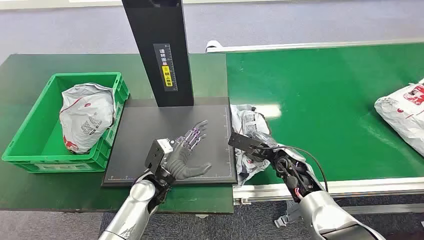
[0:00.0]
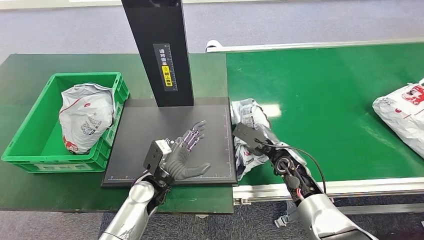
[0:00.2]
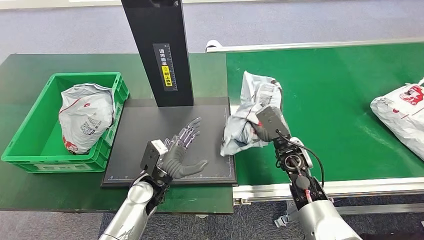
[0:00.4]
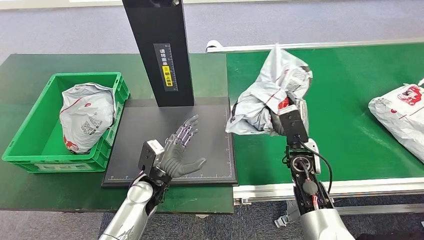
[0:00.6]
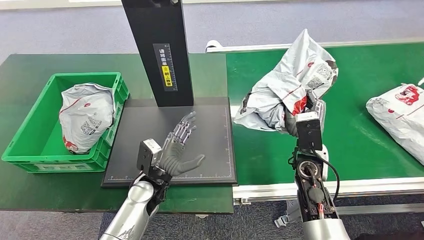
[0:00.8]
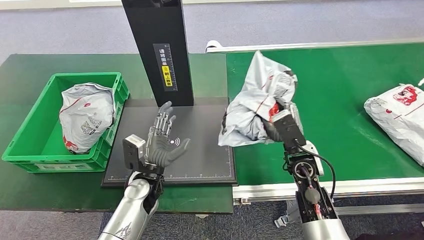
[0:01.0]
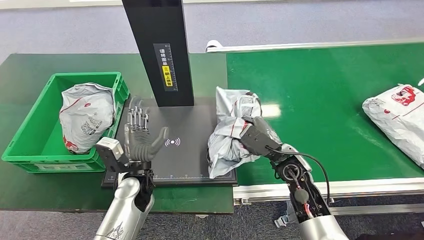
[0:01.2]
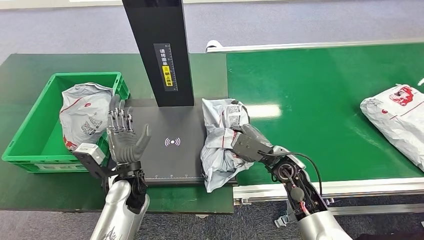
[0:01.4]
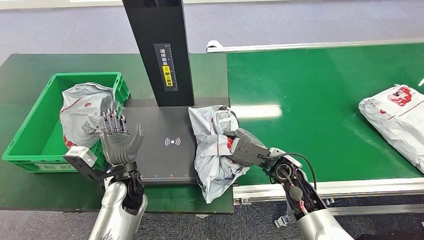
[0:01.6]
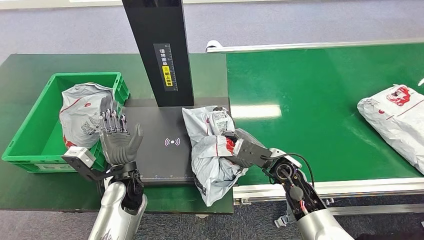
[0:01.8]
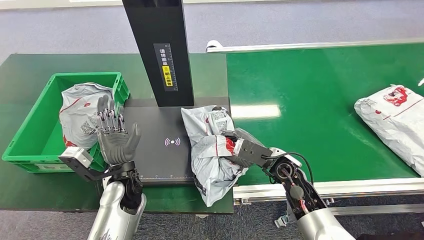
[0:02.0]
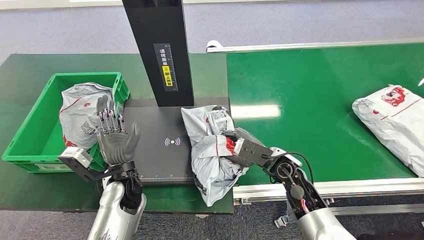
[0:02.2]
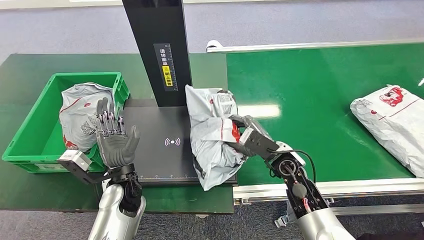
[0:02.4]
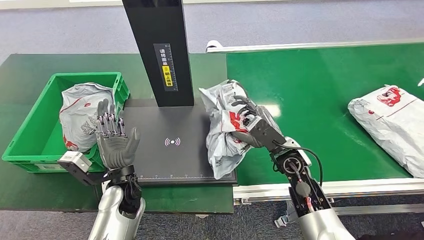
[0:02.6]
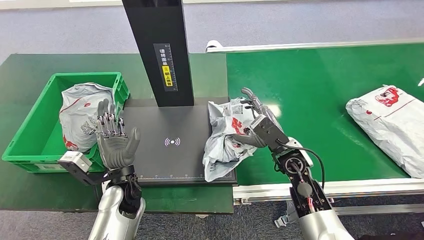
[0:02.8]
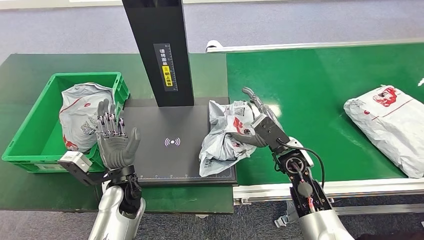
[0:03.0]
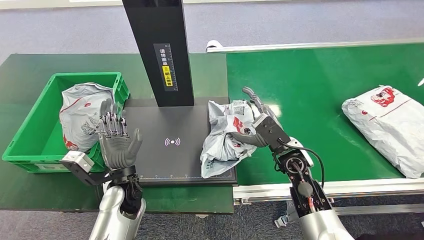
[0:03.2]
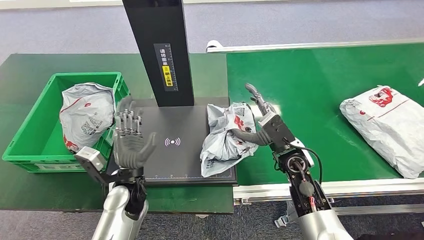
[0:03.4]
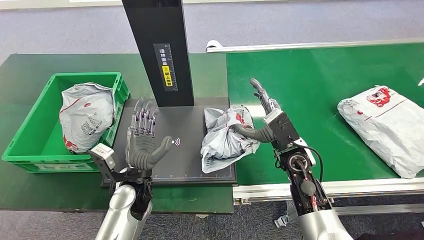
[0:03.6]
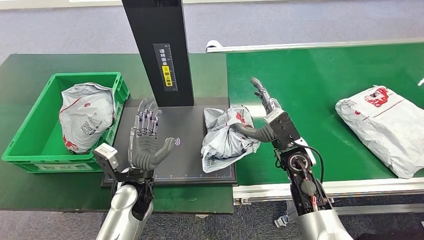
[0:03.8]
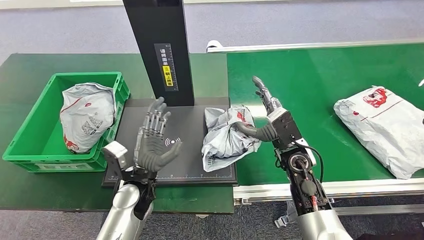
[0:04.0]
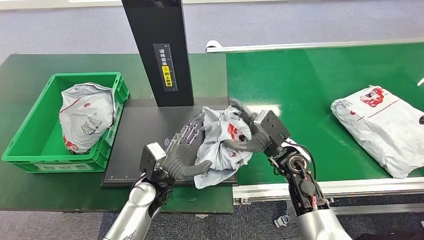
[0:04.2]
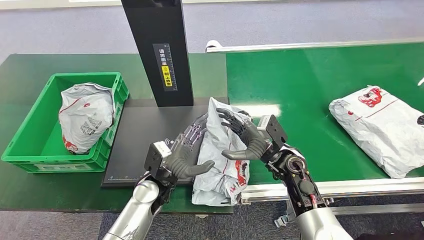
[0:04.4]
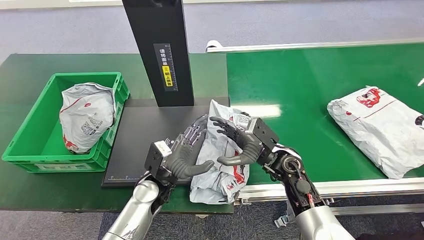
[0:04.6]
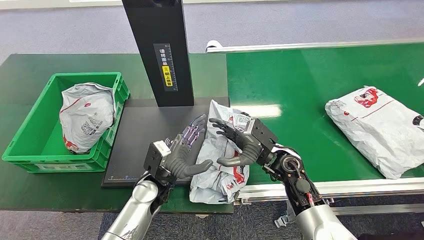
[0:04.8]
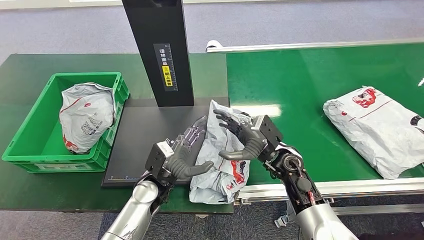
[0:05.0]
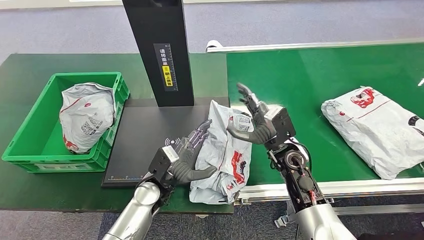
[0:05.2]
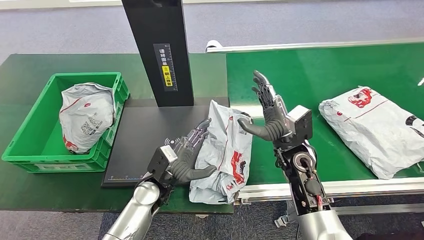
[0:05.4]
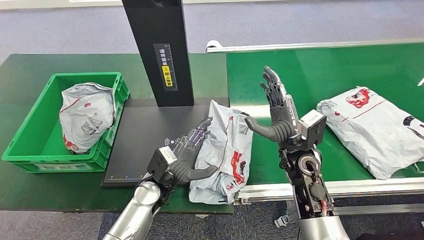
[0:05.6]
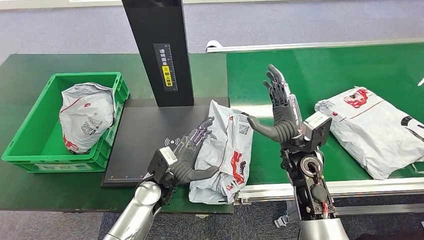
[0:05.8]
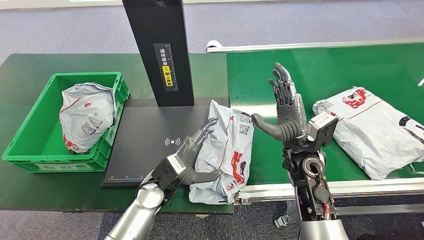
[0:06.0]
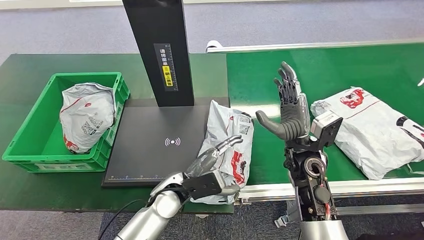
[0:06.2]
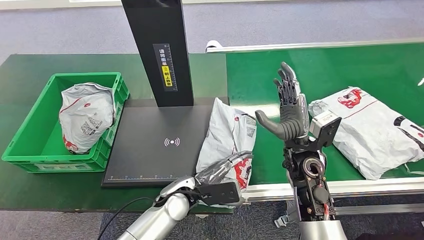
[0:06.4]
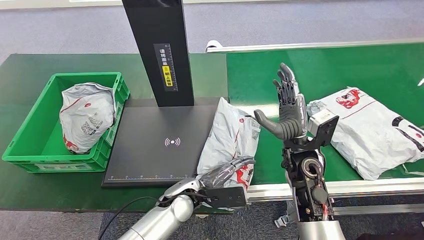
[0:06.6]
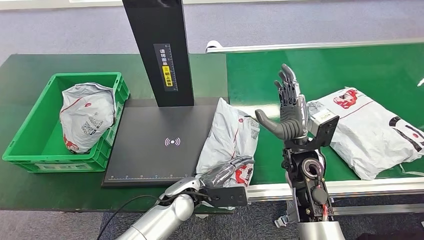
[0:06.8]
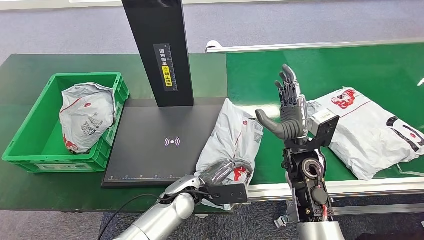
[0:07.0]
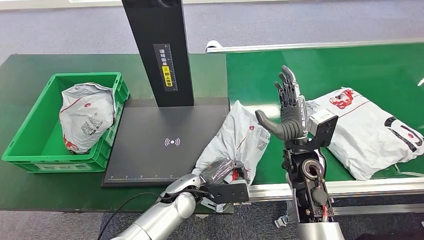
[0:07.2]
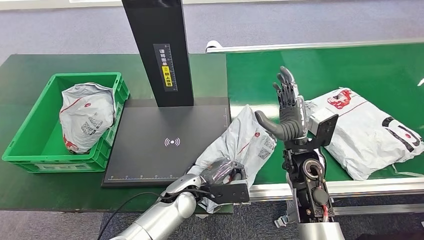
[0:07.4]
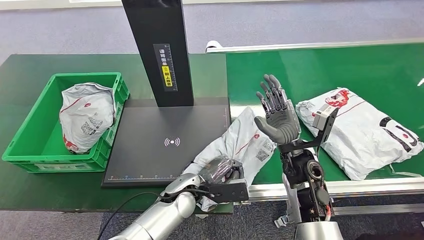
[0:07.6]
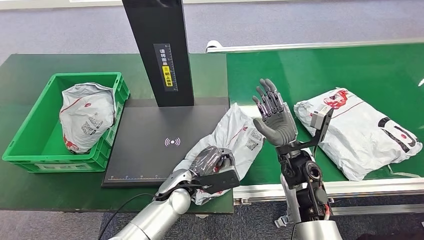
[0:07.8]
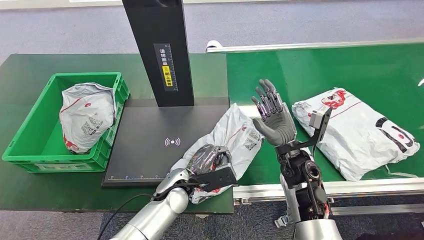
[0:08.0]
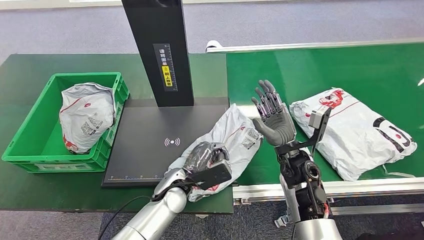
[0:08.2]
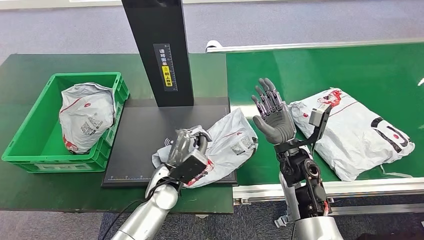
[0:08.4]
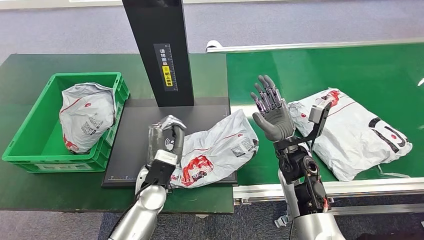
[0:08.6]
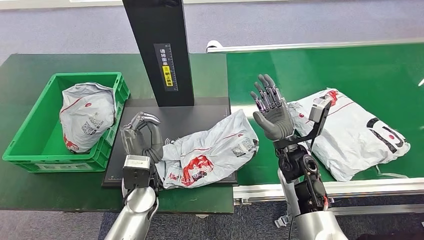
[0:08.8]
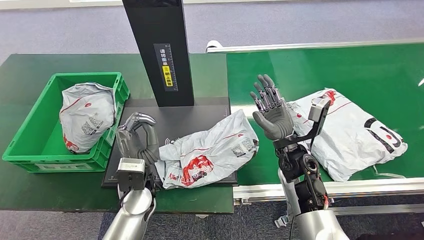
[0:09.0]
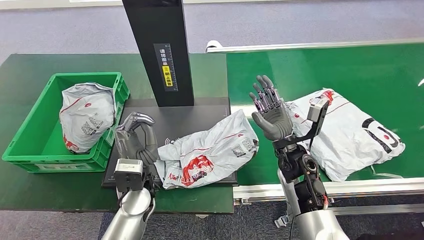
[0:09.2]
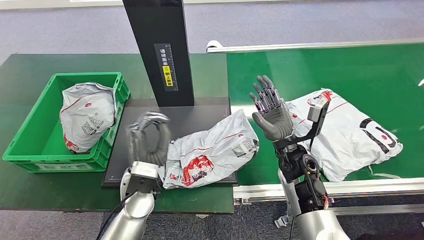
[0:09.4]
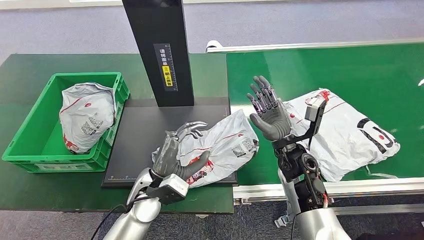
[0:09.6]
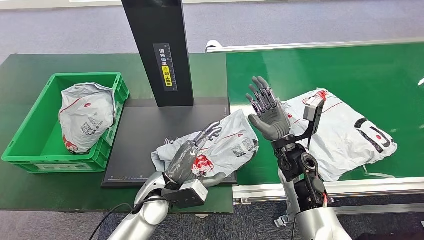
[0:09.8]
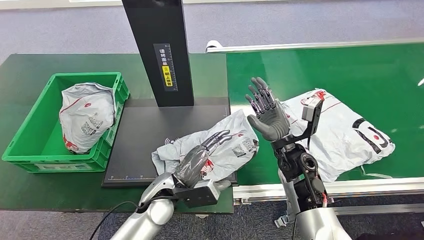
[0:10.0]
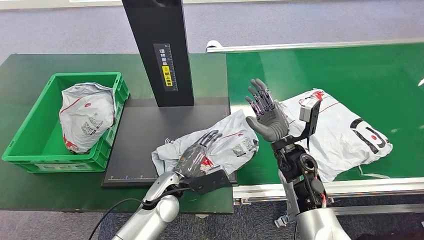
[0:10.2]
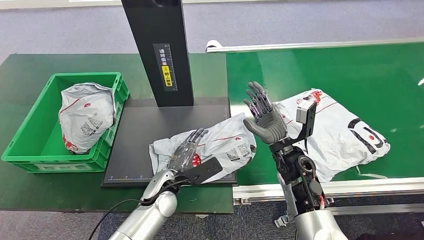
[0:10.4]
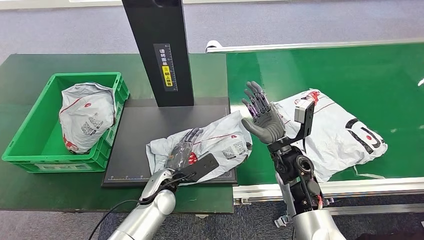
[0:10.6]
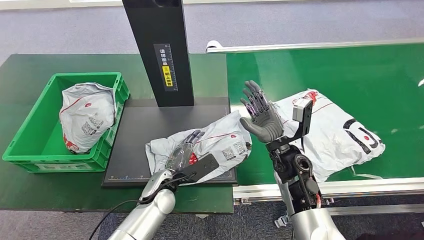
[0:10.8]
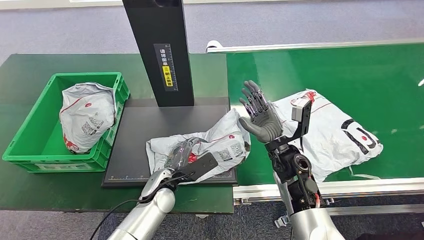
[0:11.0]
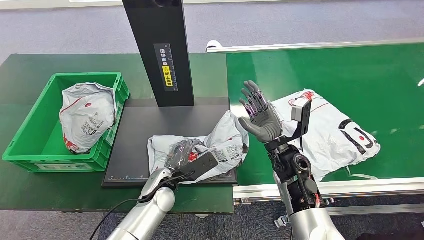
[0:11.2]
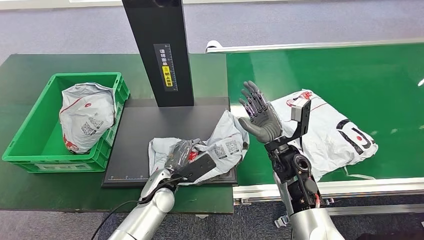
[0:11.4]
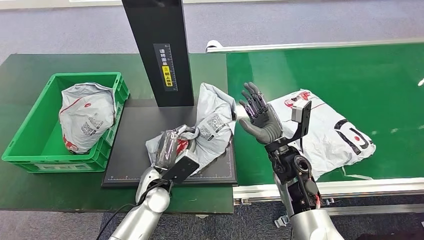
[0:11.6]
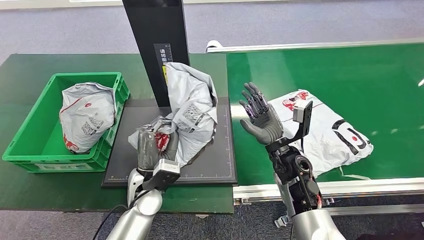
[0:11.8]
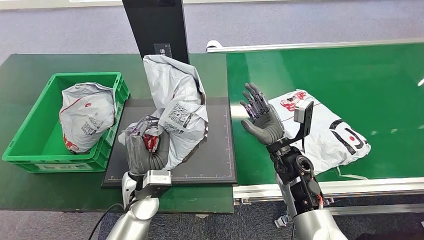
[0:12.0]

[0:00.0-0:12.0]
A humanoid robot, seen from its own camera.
Task of the whole recording: Weigh the package on the weighing device and place it in the left basket.
Step, 0:00.0 to 0:00.8: Pick up the package from the conveyor belt.
Step, 0:01.0 to 0:03.4: Place the package onto the inbound machine.
0:03.0 to 0:04.4: The left hand heads to the right, covering some 5 cm.
0:04.4 to 0:06.0: The right hand changes place by some 5 cm.
0:06.0 to 0:07.6: The left hand shifts about 5 cm to the right.
0:09.0 to 0:10.4: The left hand travels downward by about 5 cm.
0:10.4 to 0:12.0: The left hand travels upward by approximately 5 cm.

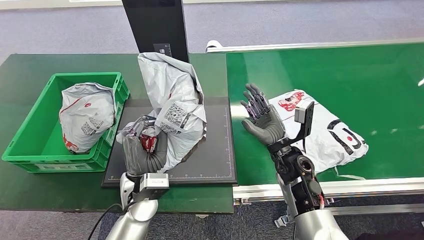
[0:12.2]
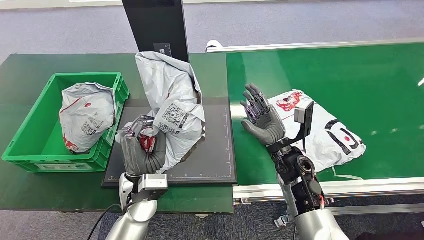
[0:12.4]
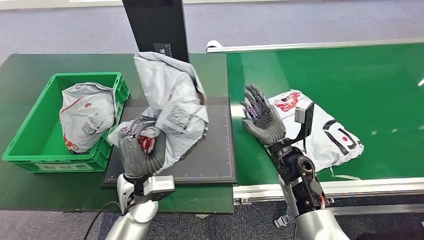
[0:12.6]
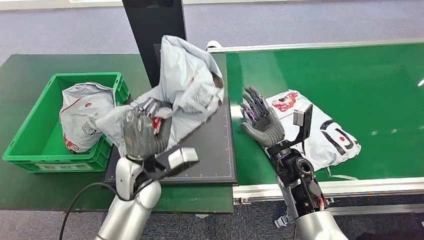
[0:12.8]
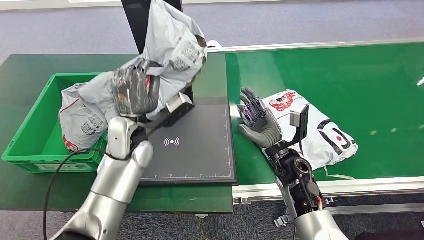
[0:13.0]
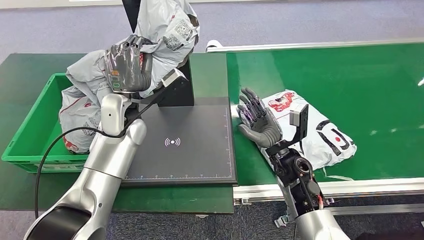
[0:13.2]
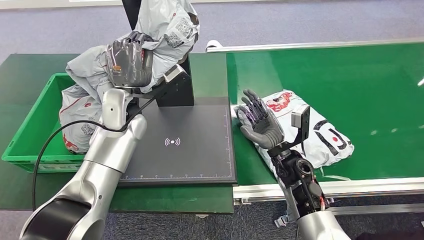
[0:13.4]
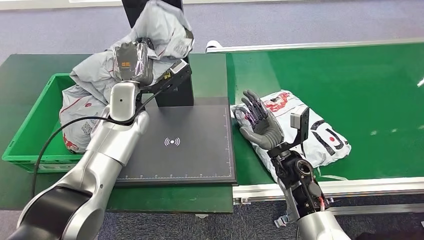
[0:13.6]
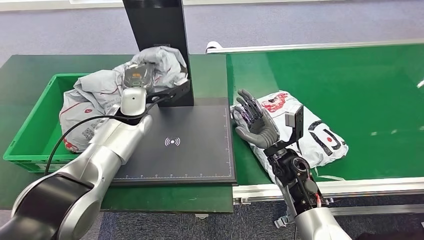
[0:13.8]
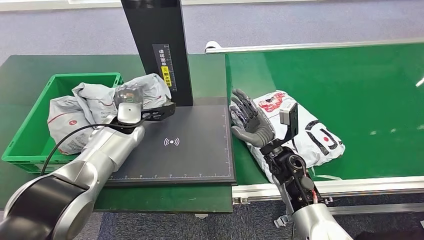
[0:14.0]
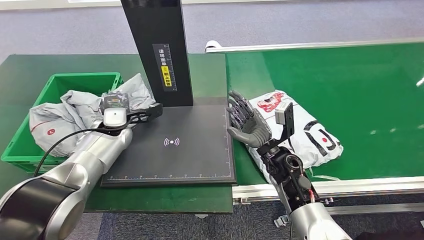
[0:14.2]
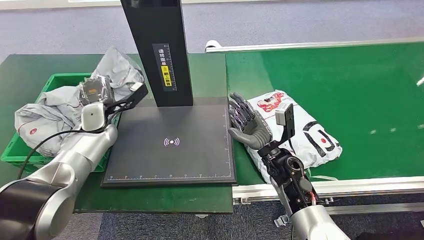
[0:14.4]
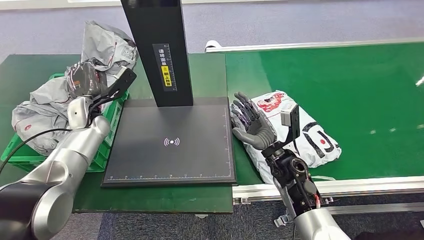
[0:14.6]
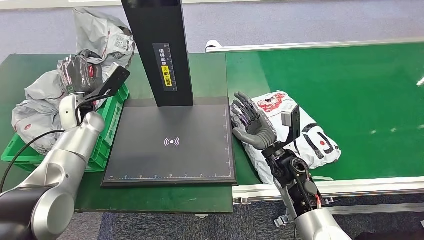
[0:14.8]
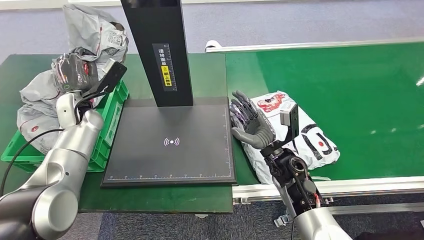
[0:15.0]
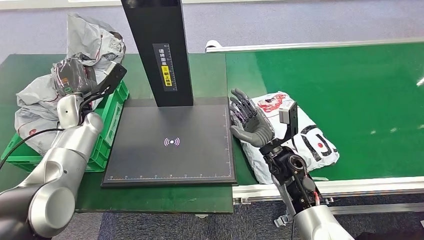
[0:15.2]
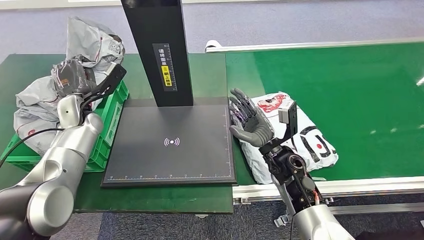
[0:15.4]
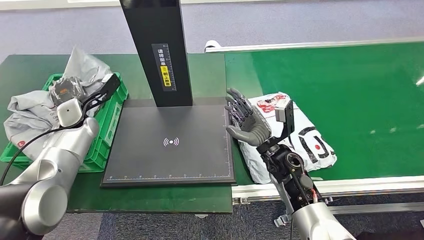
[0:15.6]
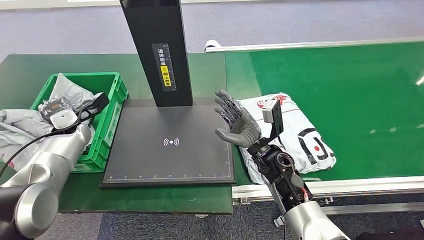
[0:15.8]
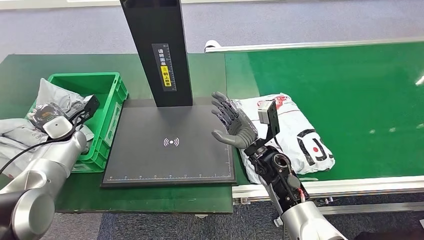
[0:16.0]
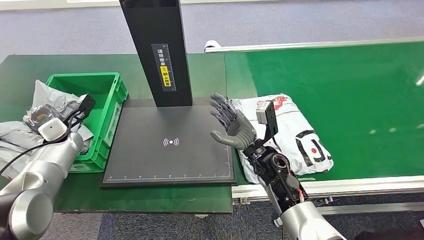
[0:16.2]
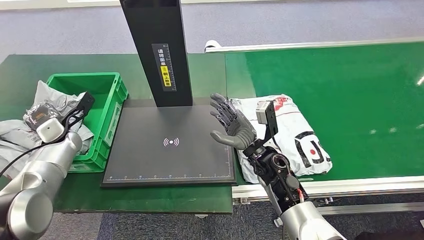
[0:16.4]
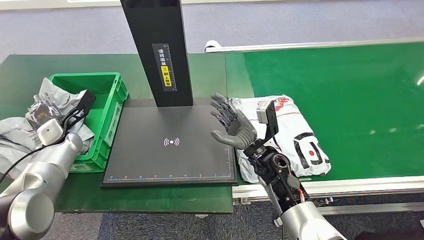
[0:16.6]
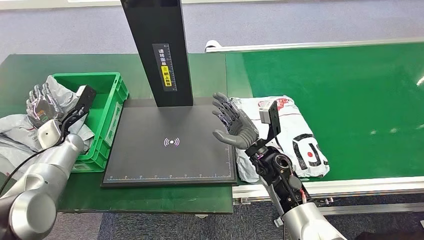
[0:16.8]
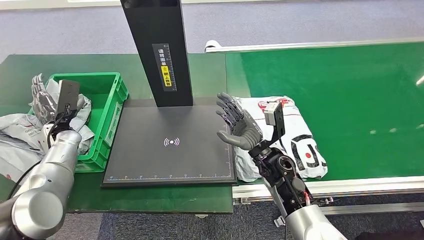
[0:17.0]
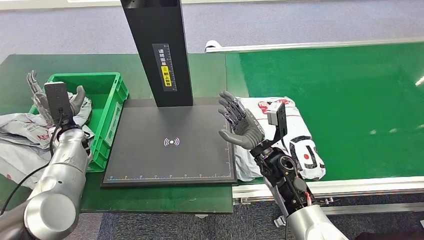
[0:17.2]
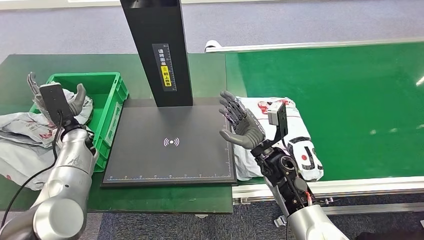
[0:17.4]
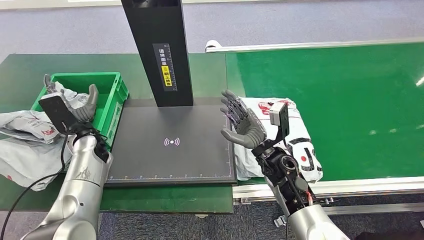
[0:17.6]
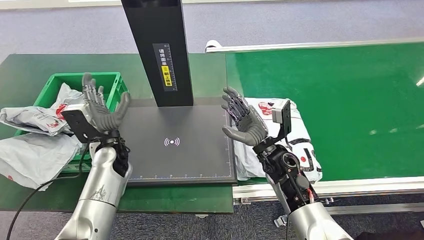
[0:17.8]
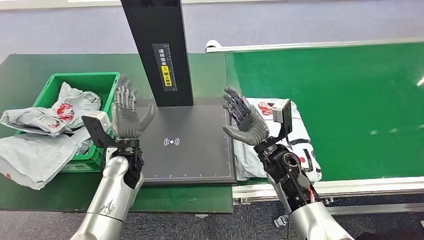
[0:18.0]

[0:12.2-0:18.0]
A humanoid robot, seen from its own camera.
Task of the whole recording: Weigh the package on the weighing device and place it in the left basket.
Step, 0:12.8 to 0:17.8: Place the package into the parcel locker.
